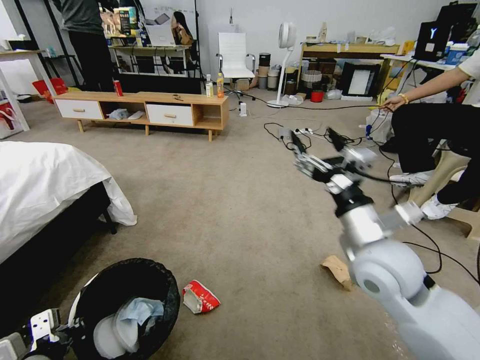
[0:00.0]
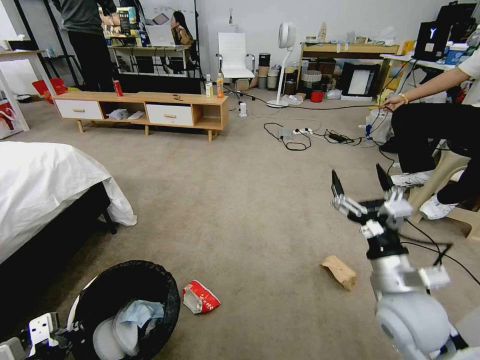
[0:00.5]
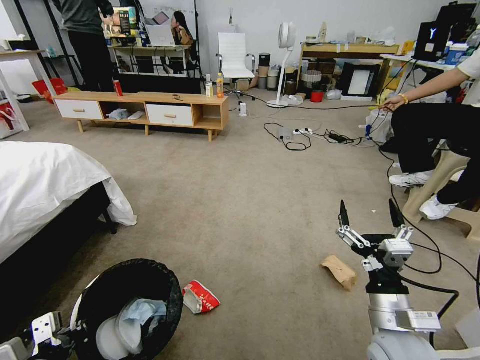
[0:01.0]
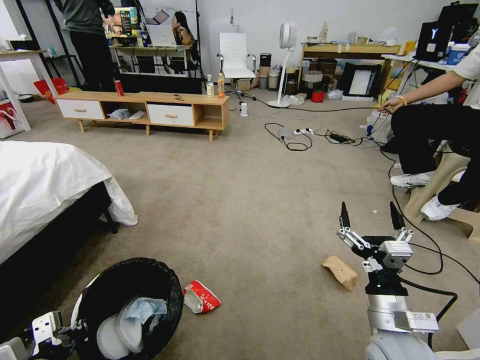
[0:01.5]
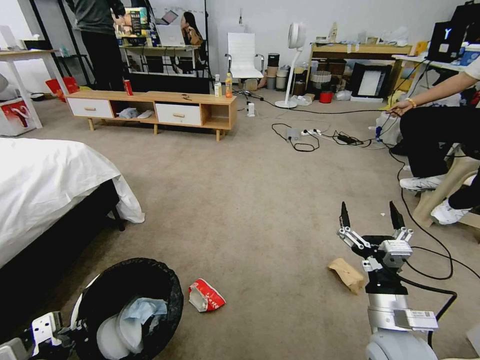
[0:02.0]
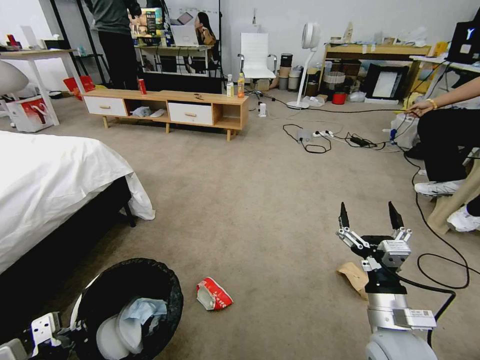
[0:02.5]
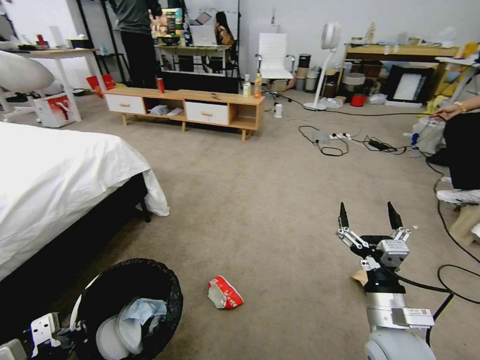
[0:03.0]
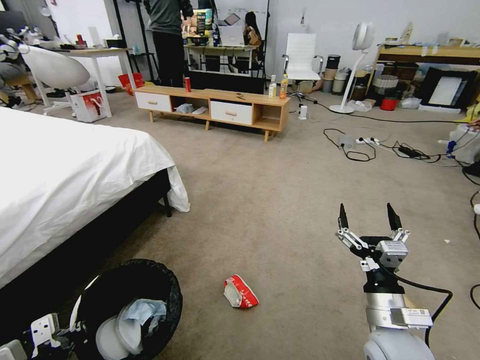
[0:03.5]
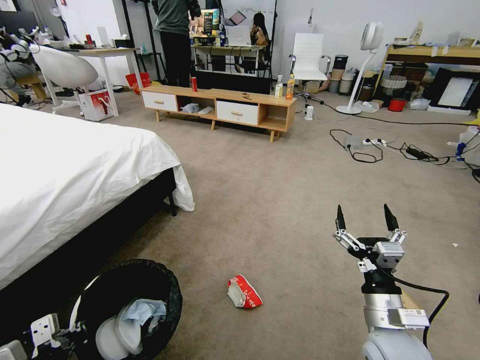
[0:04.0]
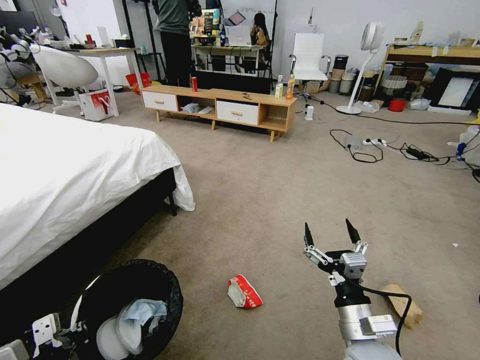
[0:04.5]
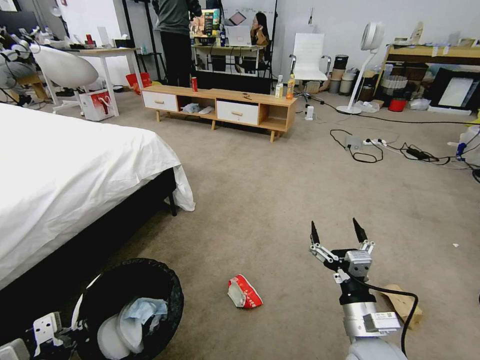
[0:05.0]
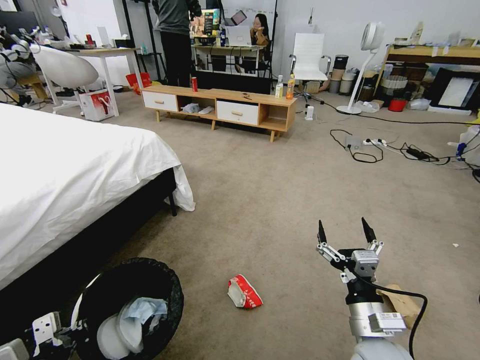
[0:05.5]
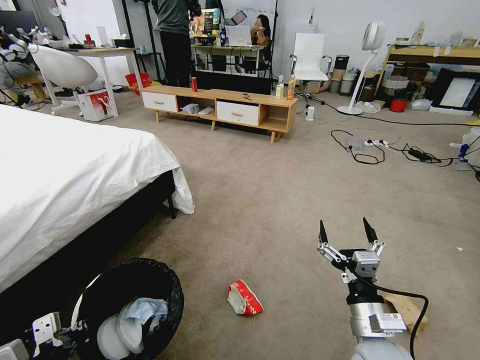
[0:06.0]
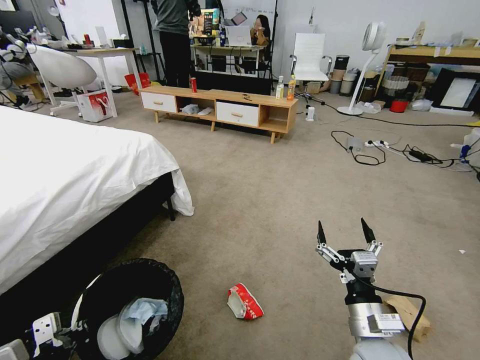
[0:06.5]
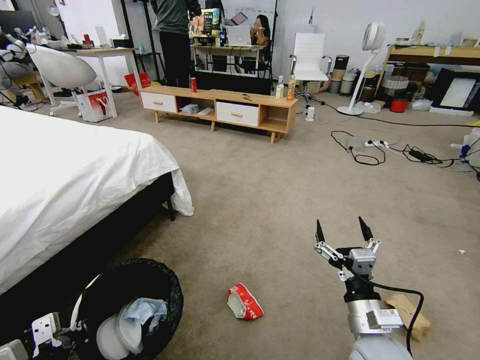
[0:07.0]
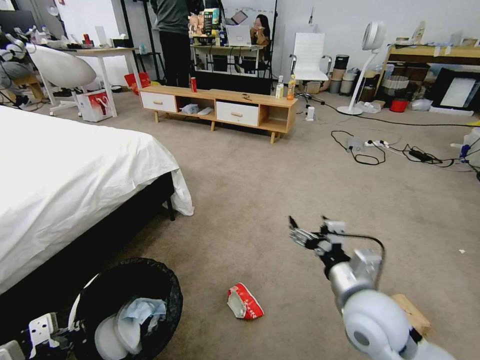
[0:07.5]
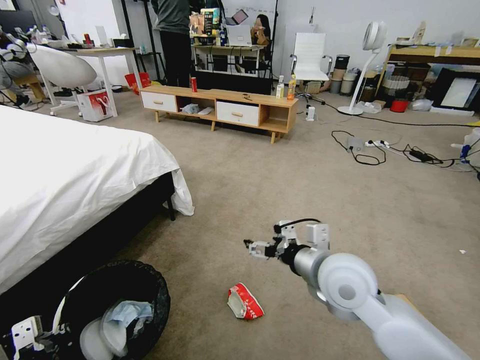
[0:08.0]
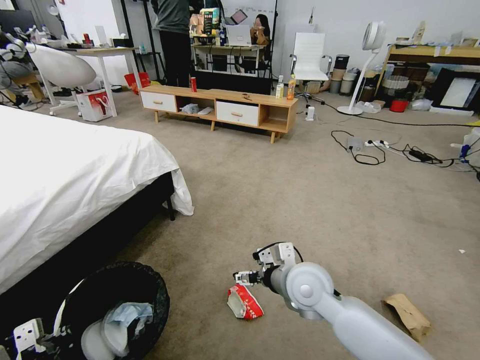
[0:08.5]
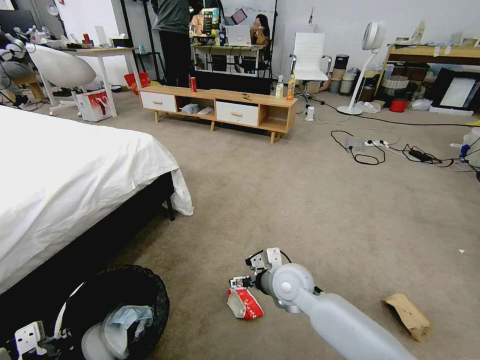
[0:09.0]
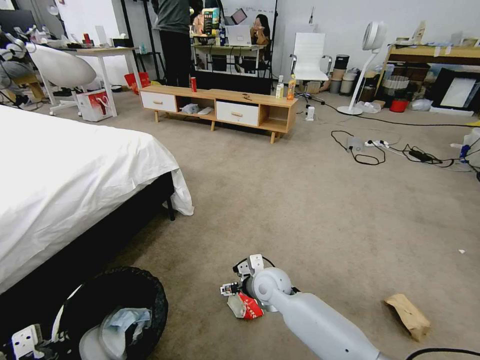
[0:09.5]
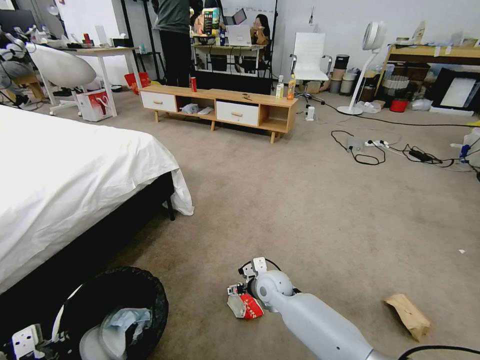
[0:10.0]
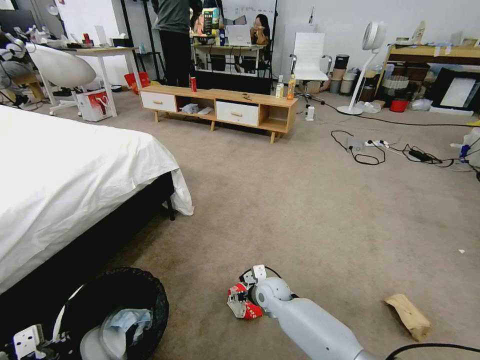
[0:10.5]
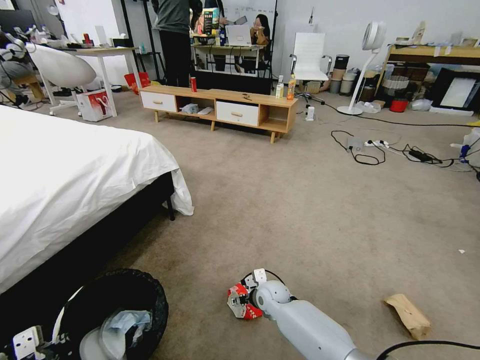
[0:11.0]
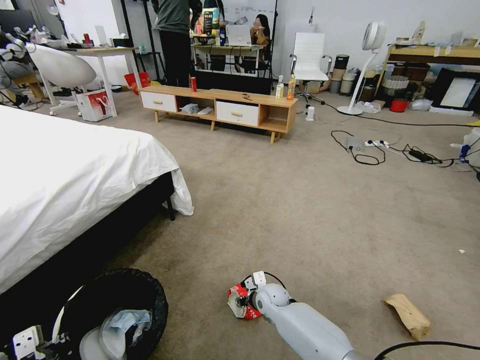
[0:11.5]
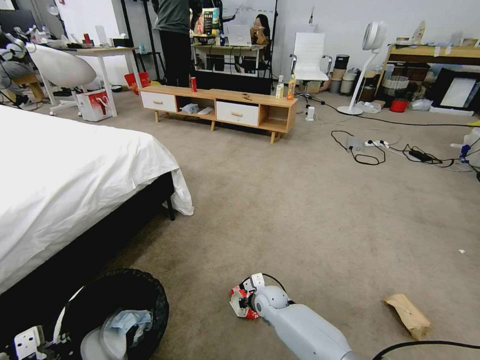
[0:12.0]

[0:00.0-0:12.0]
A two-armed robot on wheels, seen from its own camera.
Task of the whole recording: Pick up the trash bin and place the garbage on the floor into it.
0:00.0 to 0:02.0: The right gripper travels downward and backward by about 15 cm. The left gripper closes its fingers.
0:04.0 to 0:06.0: The grippers stay close to where they were, moving slightly.
0:06.0 to 0:08.0: The right gripper travels upward, forward and to the left by about 15 cm.
0:08.0 to 0:10.0: The right gripper shifts roughly 25 cm downward and forward.
0:10.0 to 0:12.0: The right gripper goes some 10 cm downward, and closes its fingers.

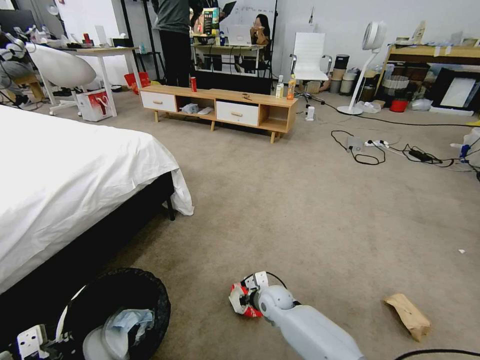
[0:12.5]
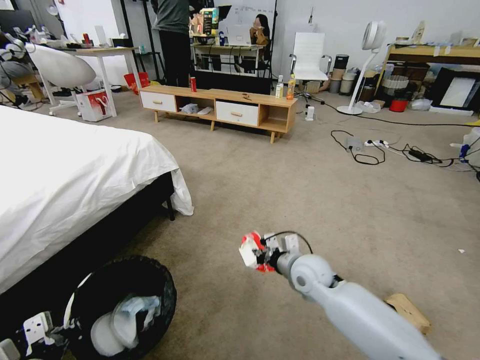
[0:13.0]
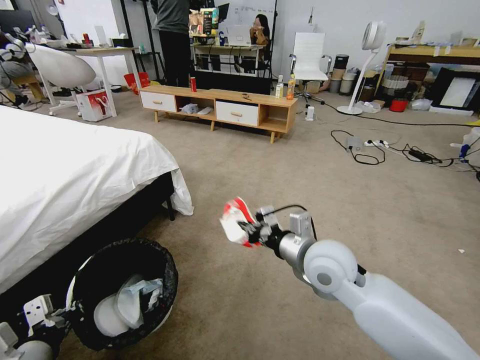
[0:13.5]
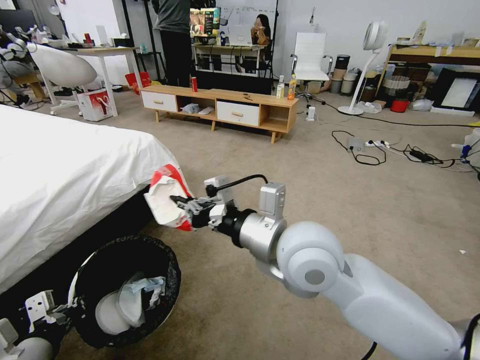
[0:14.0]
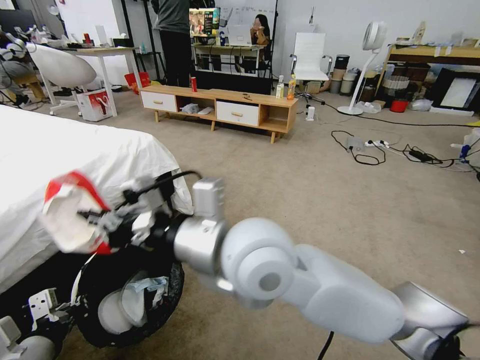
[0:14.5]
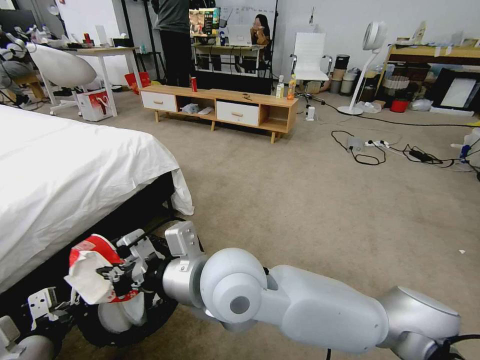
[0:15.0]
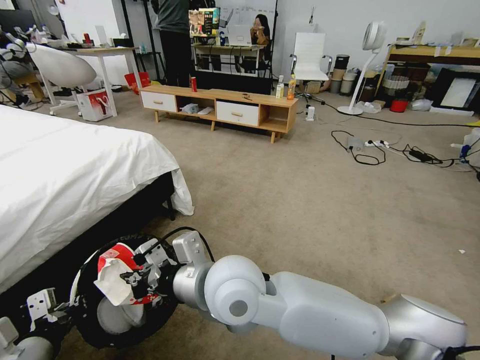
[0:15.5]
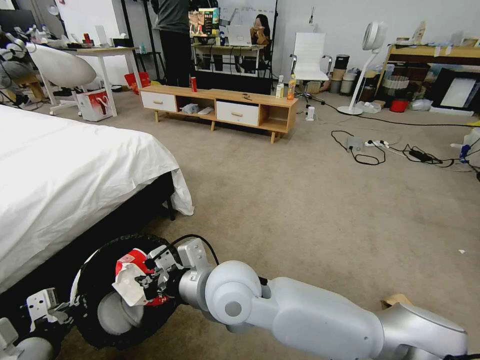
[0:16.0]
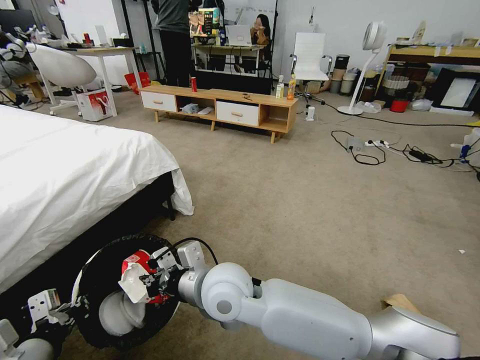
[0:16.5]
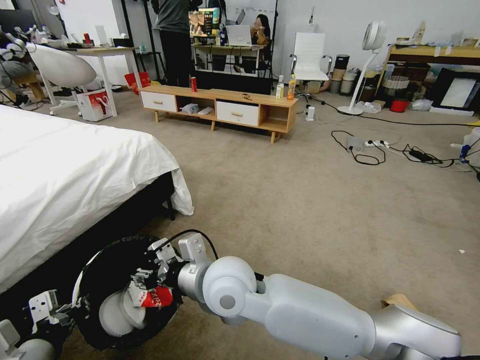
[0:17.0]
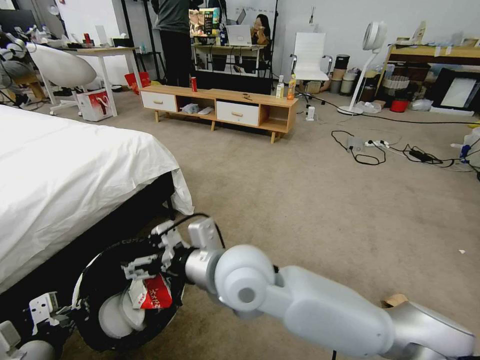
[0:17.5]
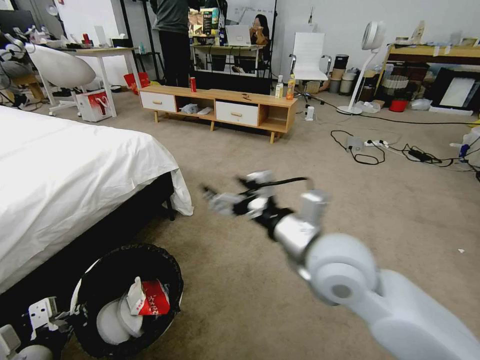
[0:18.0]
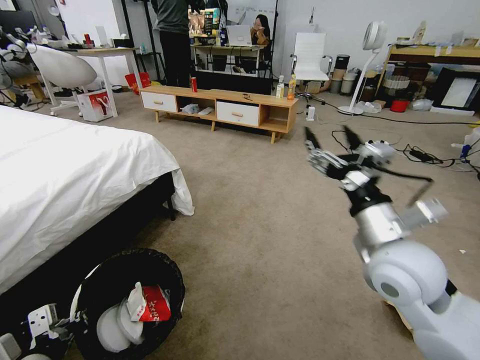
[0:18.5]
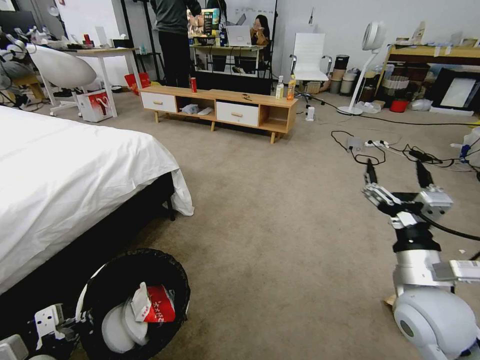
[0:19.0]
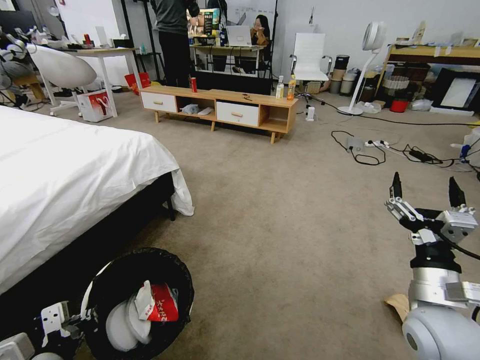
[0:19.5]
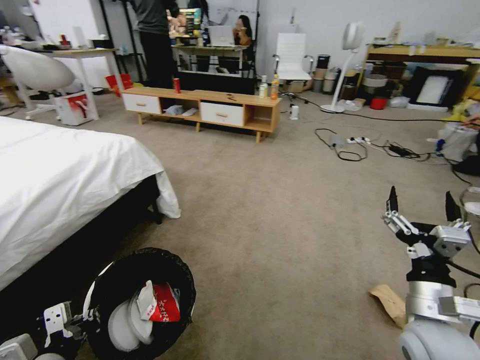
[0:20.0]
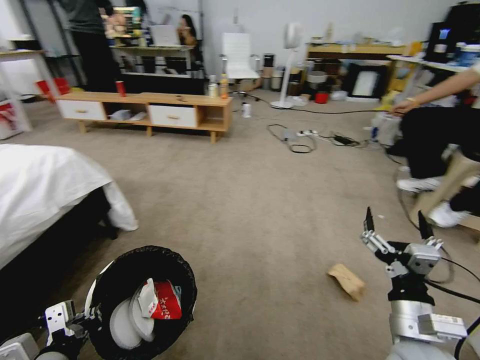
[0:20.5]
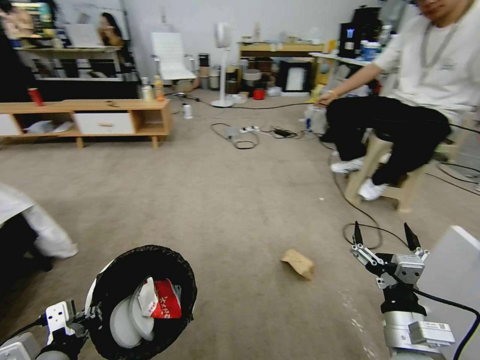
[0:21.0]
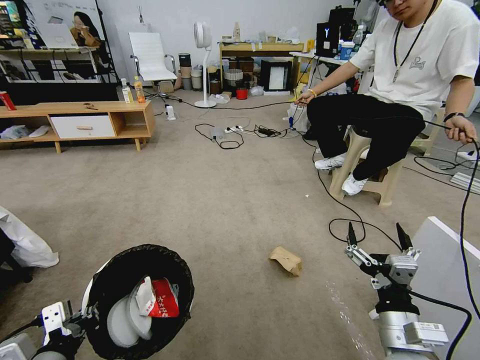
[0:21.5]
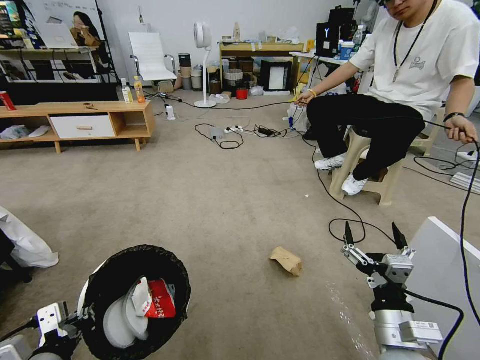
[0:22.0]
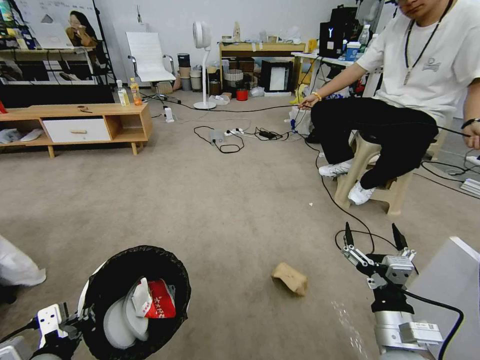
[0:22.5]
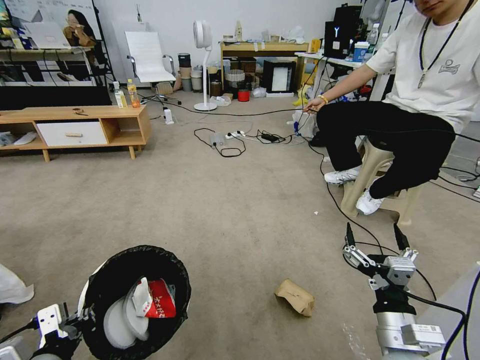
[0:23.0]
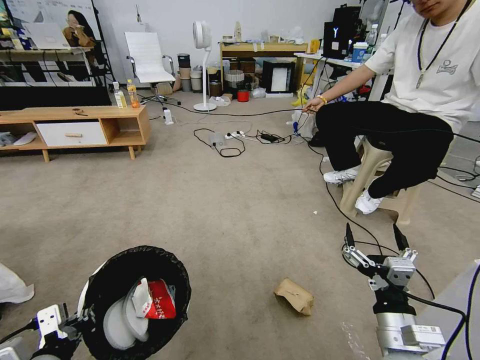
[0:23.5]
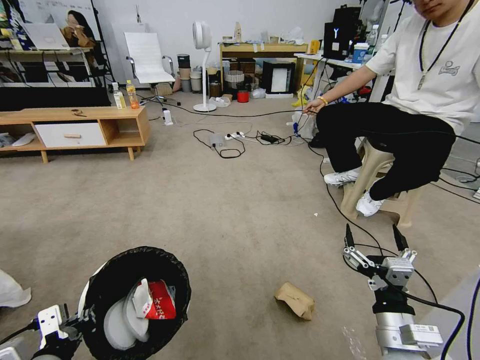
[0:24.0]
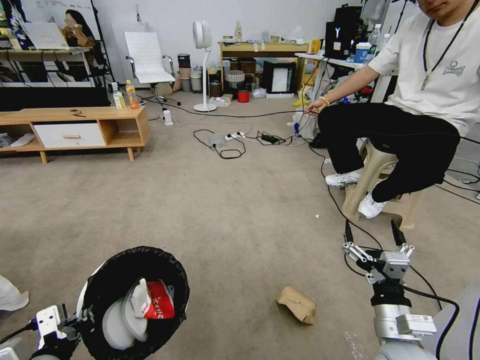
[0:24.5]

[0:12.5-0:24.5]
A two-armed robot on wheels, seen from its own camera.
Task of the whole recording: Pick up the trash bin and place the garbage on the floor into it.
0:12.5 to 0:14.5: The left gripper changes place by about 5 cm; the right gripper heads upward, covering about 40 cm.
0:14.5 to 0:16.5: The right gripper goes about 15 cm downward.
0:16.5 to 0:18.5: The right gripper travels to the right by roughly 30 cm, and opens up.
0:18.5 to 0:20.5: The right gripper goes about 15 cm downward and backward.

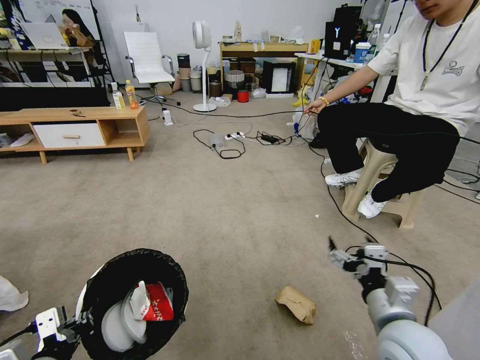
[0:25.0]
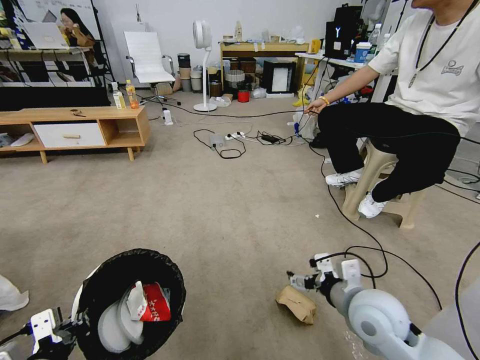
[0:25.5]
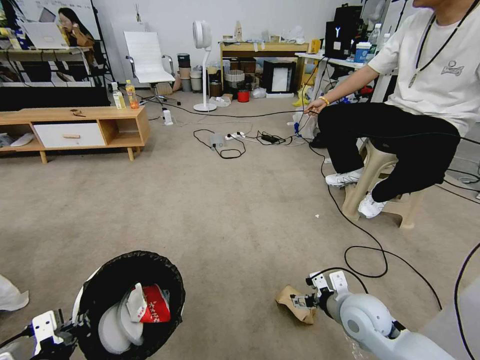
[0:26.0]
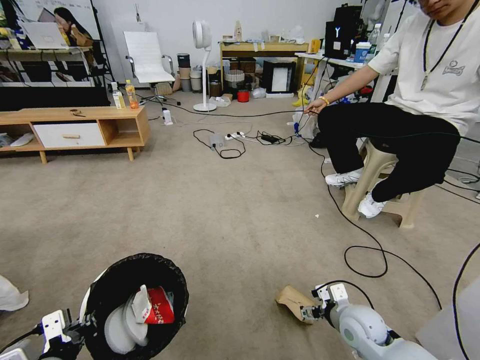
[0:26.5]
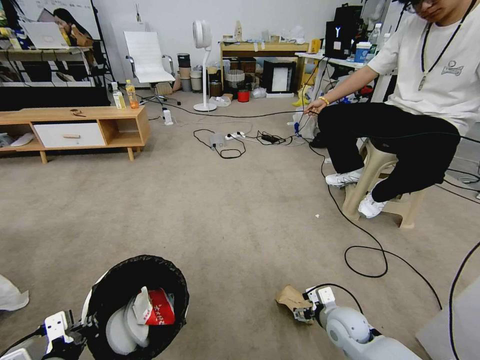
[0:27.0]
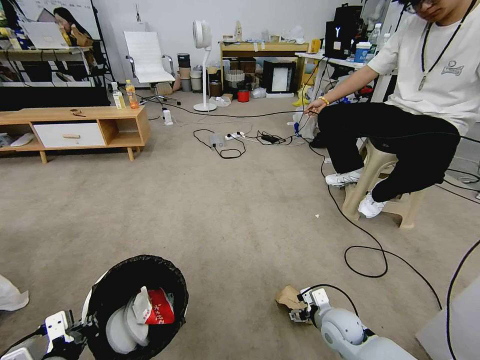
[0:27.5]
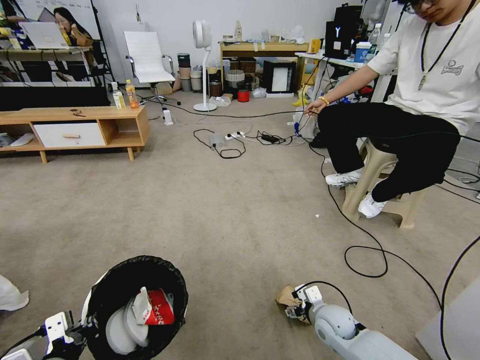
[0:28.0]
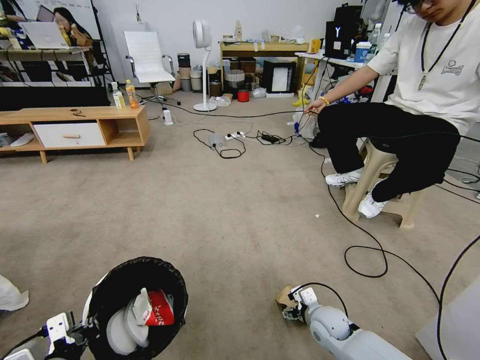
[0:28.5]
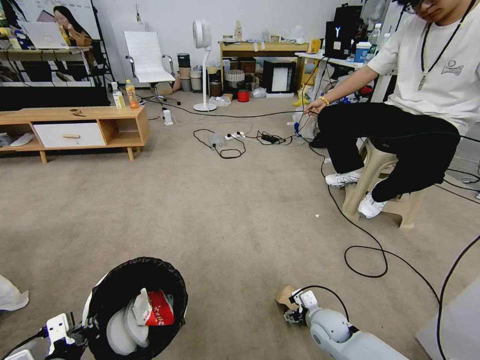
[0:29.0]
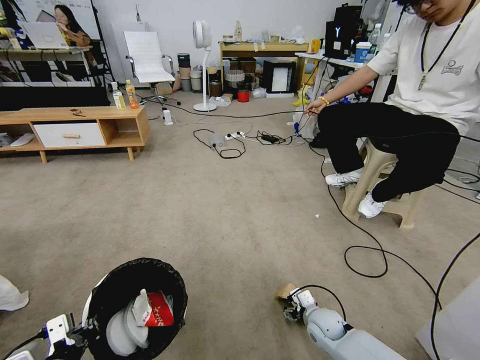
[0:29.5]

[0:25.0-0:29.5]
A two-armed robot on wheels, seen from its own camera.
Task of the whole recording: Pick up the trash bin and place the garbage on the floor into it.
0:25.0 to 0:27.0: The right gripper shifts some 20 cm downward and forward.
0:27.0 to 0:29.5: The right gripper heads downward, covering some 5 cm.
